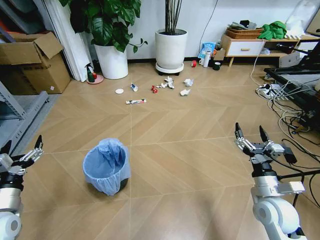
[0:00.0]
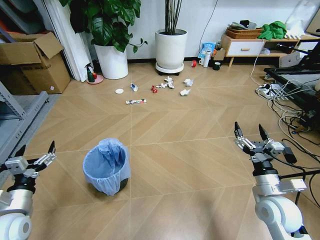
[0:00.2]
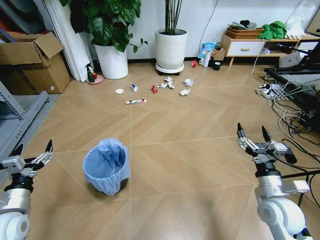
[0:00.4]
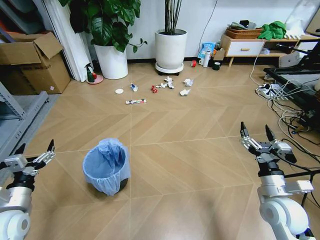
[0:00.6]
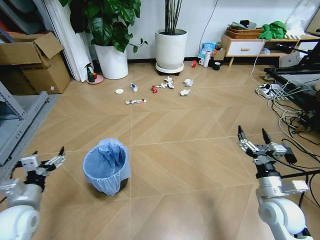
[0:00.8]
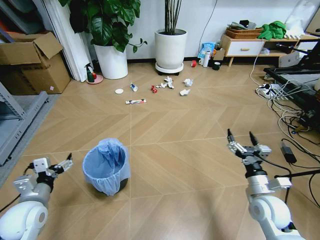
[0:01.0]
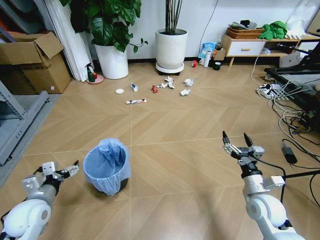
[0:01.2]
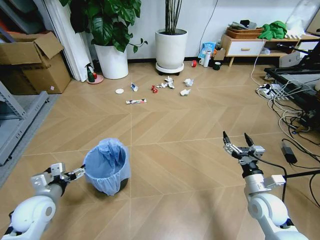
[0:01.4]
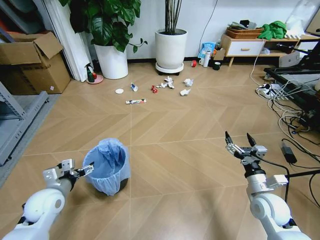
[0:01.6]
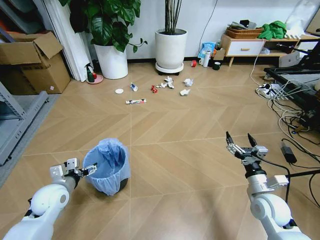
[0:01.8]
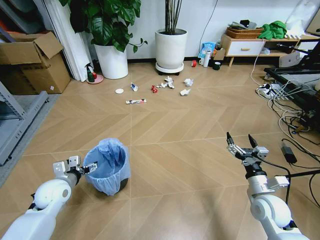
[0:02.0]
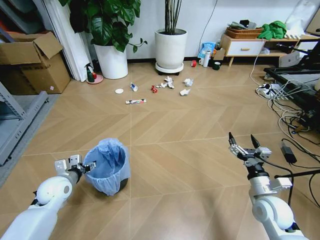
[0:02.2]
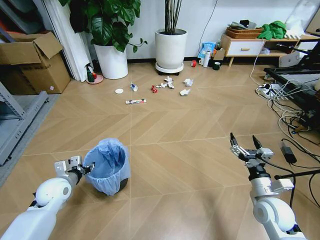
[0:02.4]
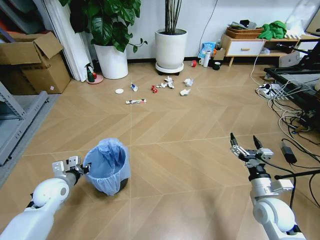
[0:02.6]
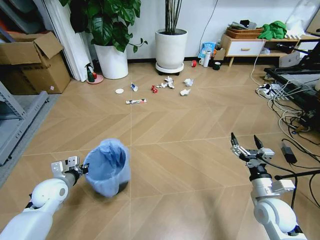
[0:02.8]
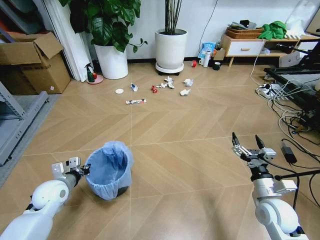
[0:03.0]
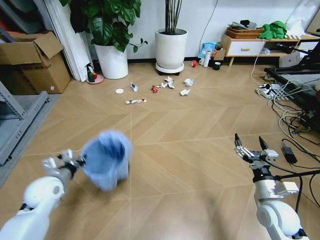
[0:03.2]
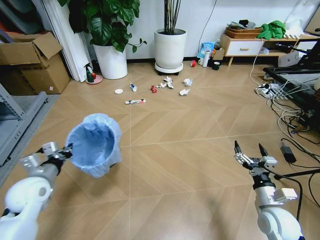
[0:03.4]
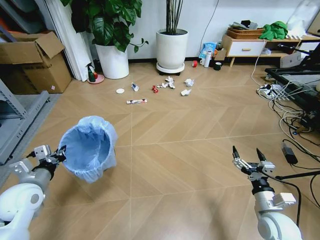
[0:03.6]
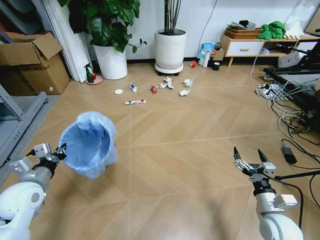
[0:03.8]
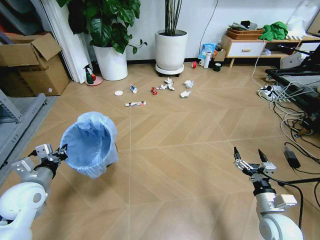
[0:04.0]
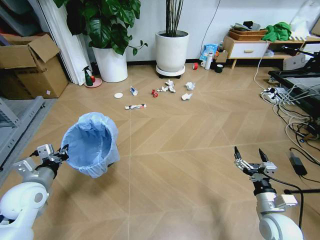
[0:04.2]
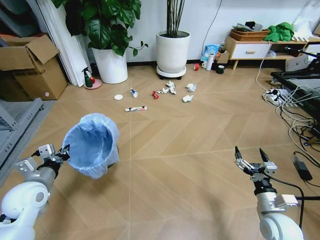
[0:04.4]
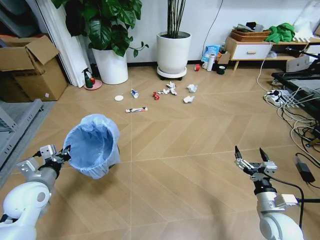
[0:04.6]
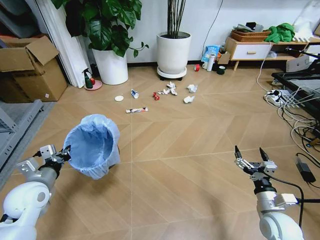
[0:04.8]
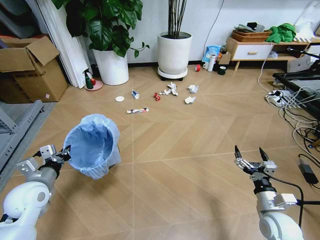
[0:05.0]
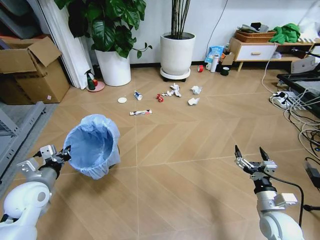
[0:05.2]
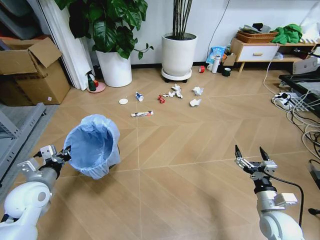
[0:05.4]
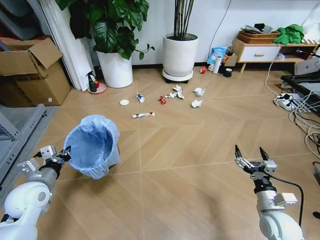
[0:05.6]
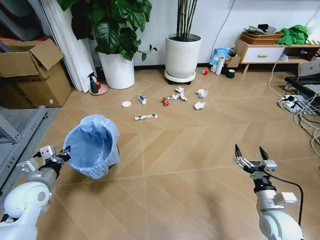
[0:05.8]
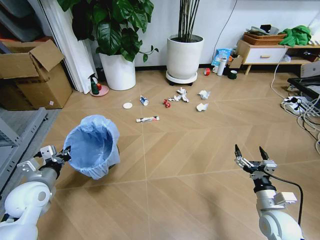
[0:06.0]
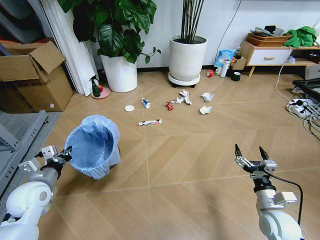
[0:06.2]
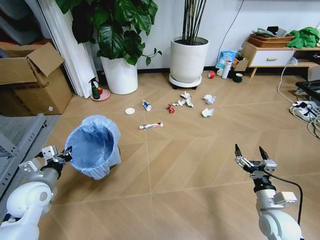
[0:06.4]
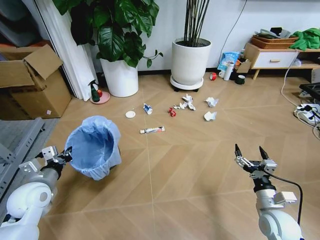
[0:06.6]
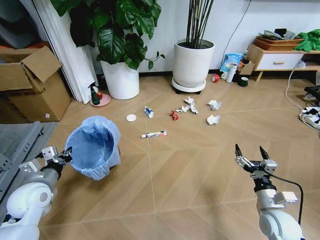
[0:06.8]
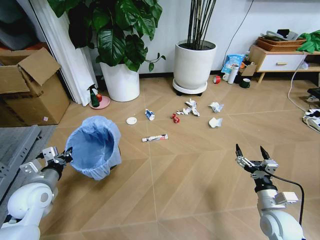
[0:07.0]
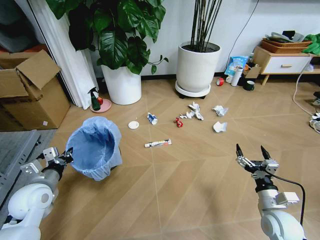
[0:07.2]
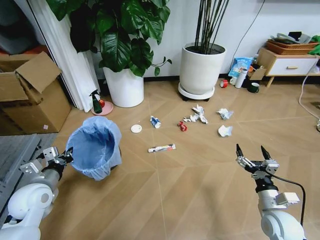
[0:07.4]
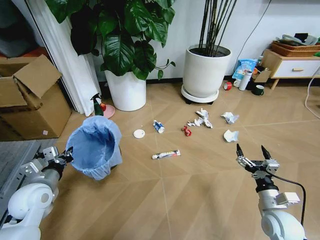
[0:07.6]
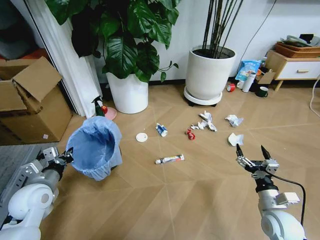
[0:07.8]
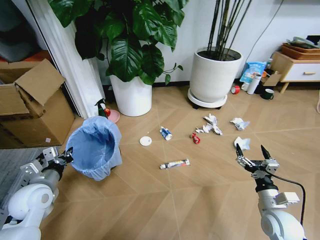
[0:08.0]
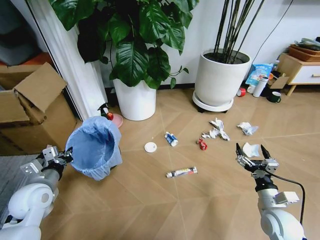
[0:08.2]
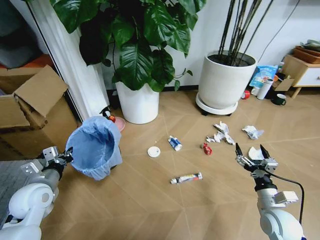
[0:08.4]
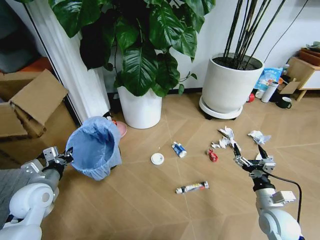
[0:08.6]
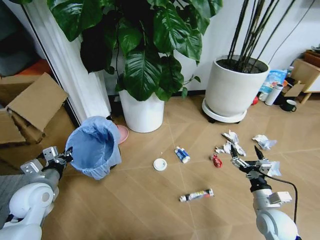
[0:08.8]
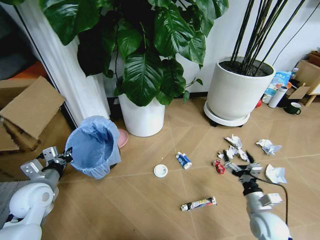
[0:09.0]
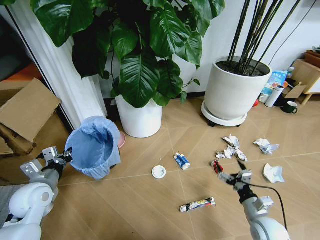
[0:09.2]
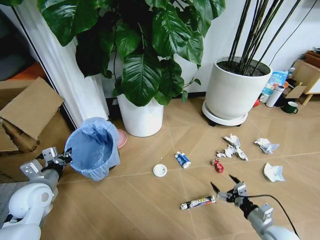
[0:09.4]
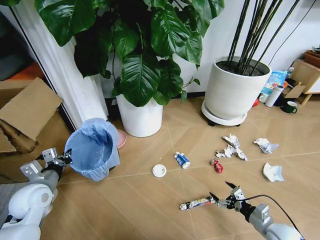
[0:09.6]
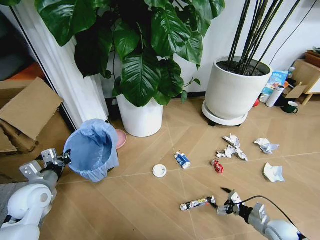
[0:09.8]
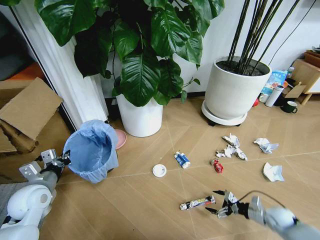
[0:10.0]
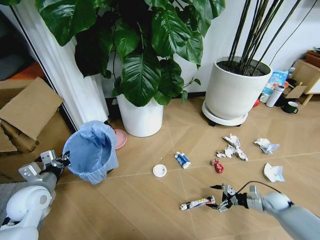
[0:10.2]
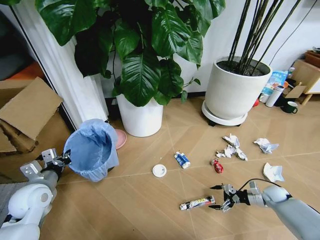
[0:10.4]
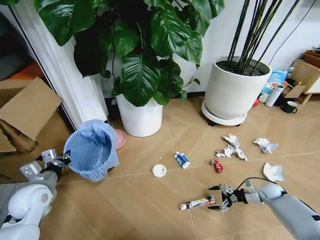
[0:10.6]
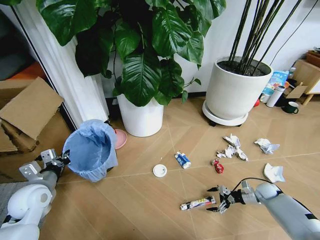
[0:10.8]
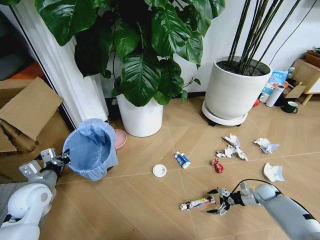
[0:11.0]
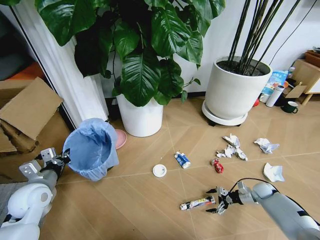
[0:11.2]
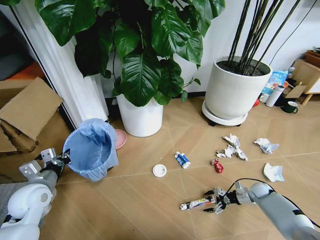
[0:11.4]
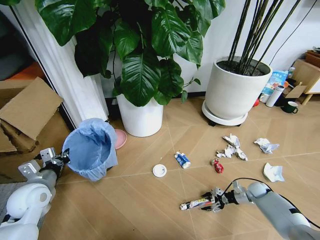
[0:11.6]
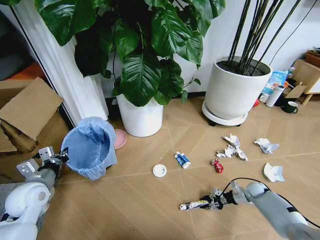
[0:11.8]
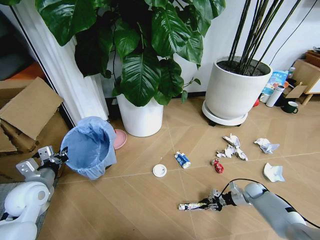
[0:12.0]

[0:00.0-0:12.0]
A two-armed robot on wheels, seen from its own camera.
Task of the whole recording: Pick up the trash bin and place the garbage on the floor into it.
0:01.6 to 0:03.0: The left gripper closes.
0:03.0 to 0:04.4: The left gripper travels upward by about 5 cm.
0:09.0 to 0:10.4: The right gripper moves to the right, forward and downward, approximately 25 cm.
0:10.4 to 0:12.0: The right gripper ends up approximately 5 cm from where it was, and closes its fingers.

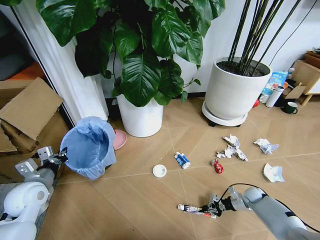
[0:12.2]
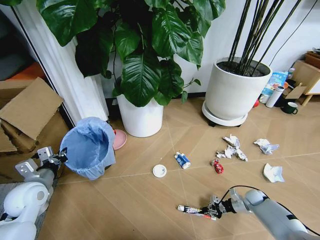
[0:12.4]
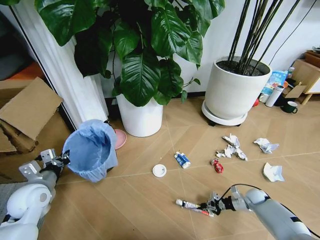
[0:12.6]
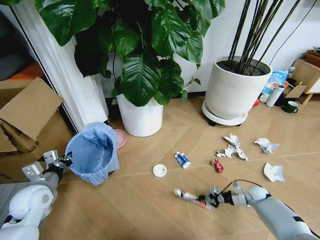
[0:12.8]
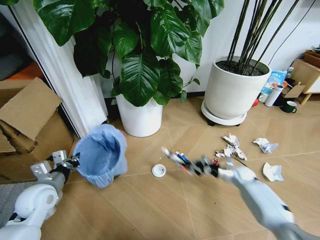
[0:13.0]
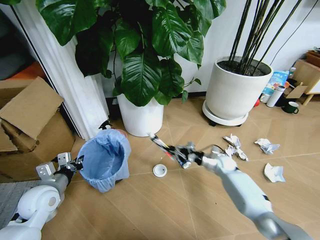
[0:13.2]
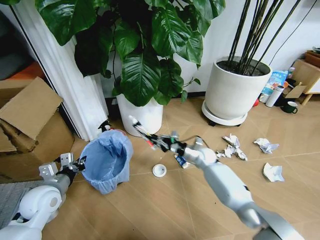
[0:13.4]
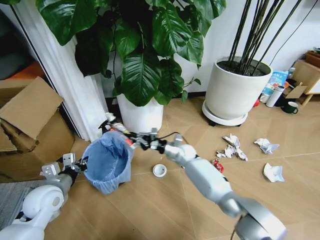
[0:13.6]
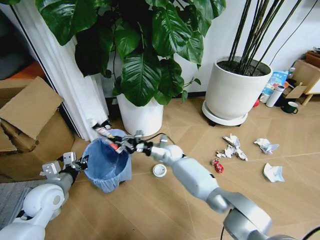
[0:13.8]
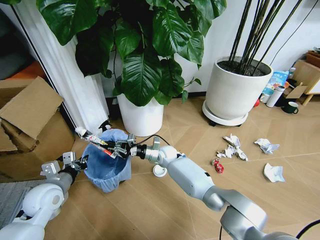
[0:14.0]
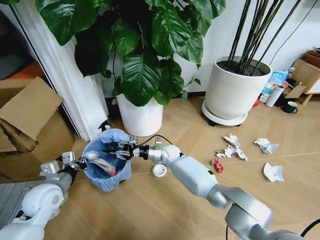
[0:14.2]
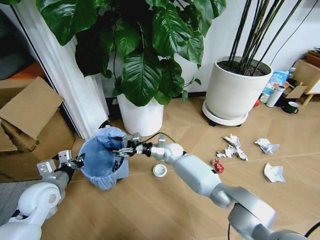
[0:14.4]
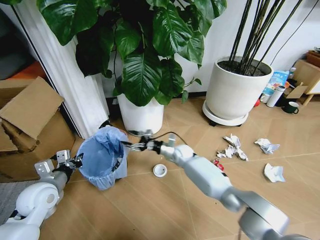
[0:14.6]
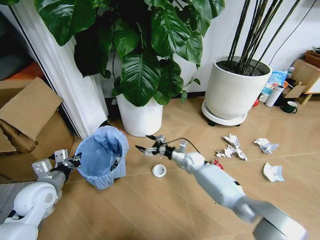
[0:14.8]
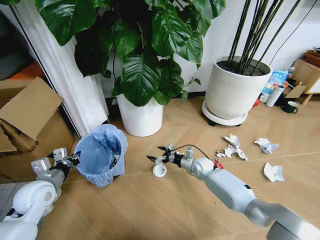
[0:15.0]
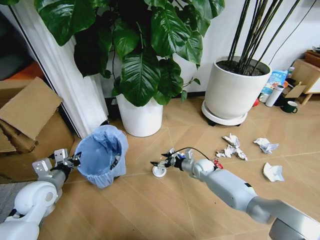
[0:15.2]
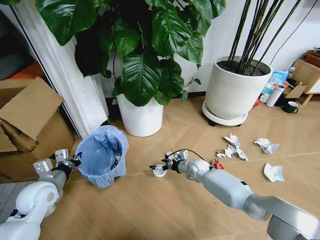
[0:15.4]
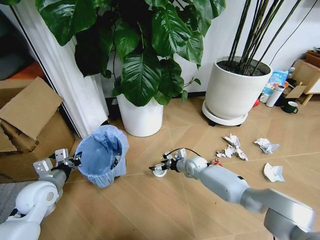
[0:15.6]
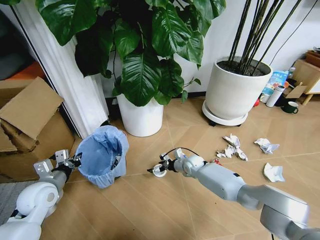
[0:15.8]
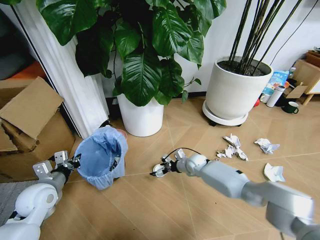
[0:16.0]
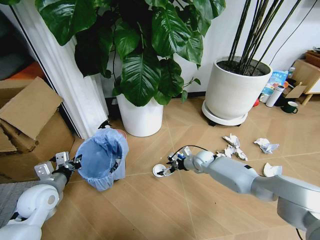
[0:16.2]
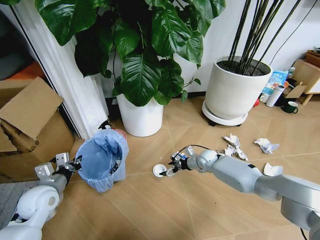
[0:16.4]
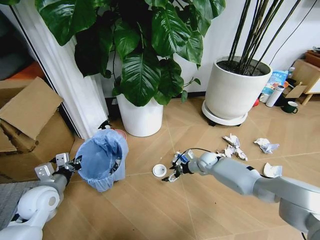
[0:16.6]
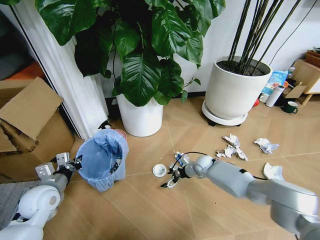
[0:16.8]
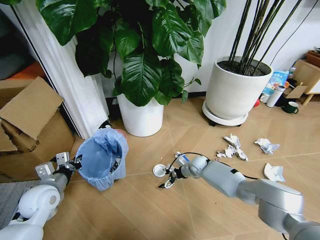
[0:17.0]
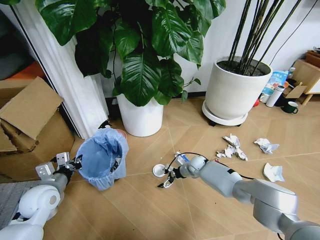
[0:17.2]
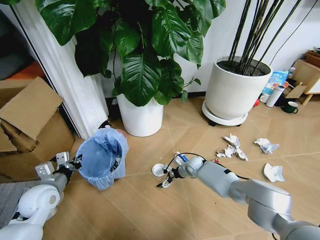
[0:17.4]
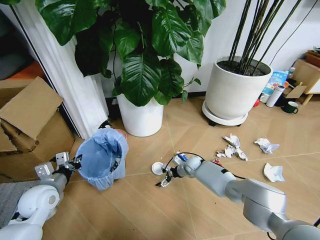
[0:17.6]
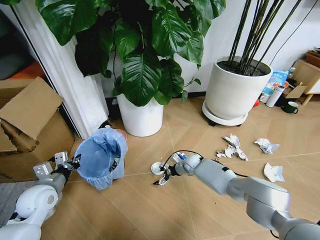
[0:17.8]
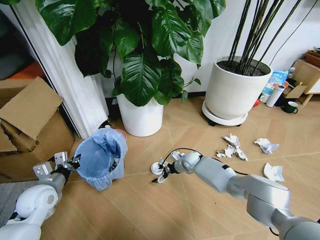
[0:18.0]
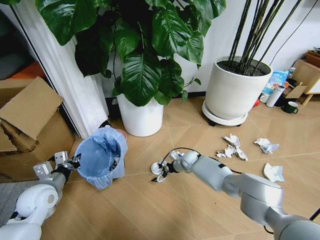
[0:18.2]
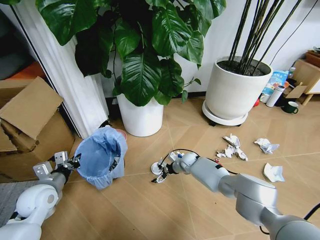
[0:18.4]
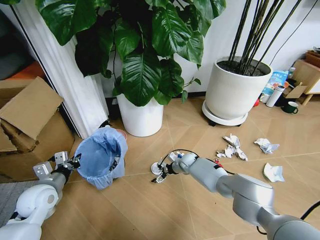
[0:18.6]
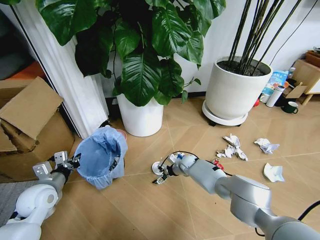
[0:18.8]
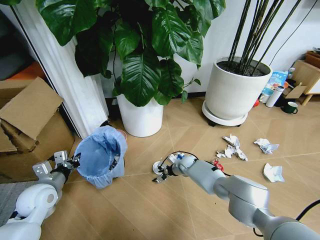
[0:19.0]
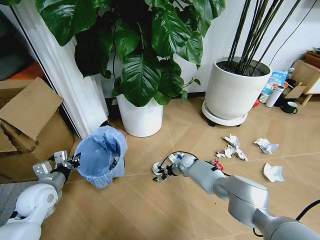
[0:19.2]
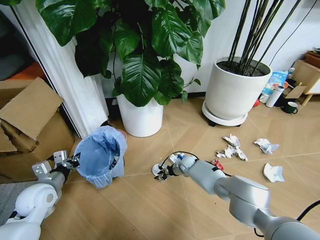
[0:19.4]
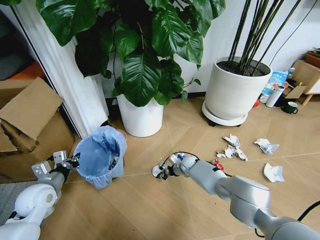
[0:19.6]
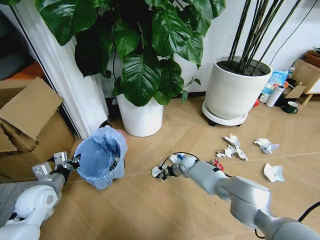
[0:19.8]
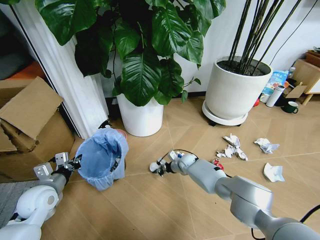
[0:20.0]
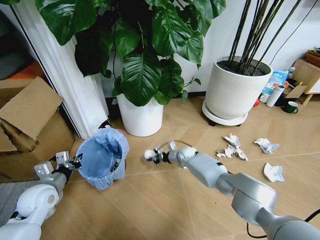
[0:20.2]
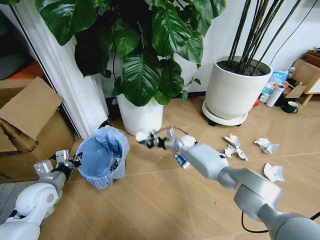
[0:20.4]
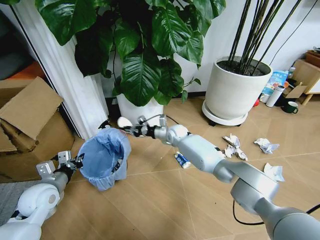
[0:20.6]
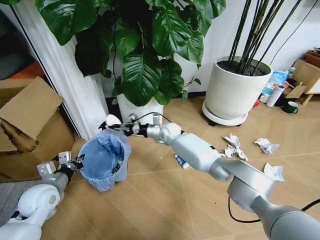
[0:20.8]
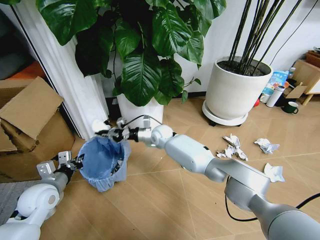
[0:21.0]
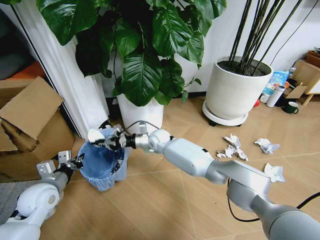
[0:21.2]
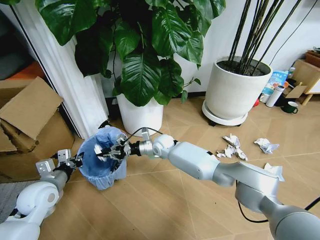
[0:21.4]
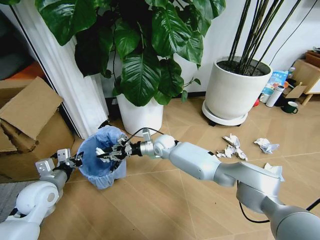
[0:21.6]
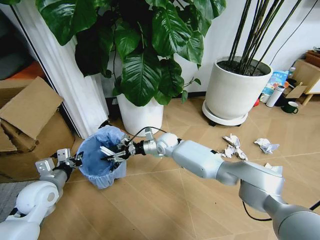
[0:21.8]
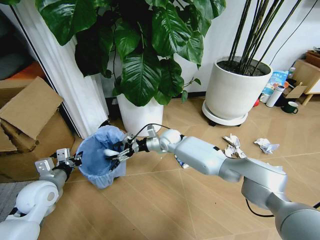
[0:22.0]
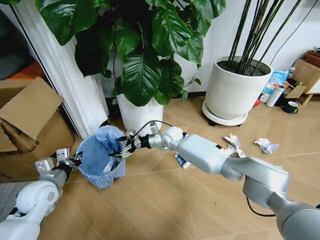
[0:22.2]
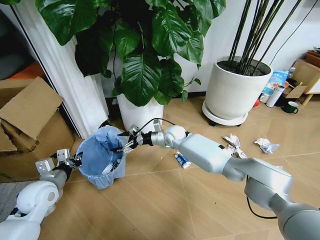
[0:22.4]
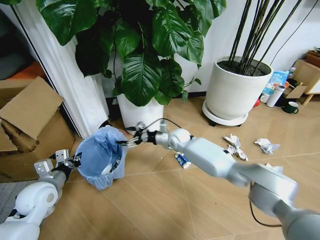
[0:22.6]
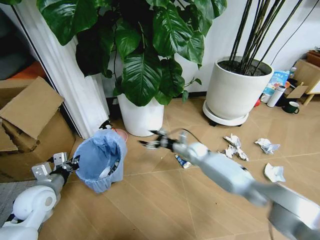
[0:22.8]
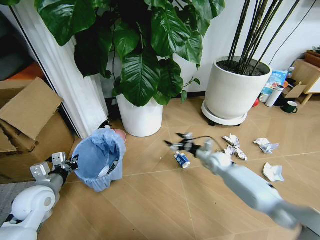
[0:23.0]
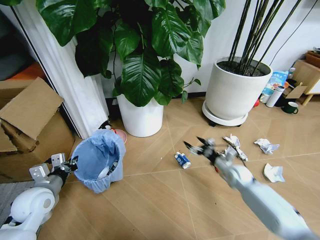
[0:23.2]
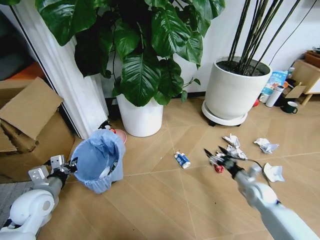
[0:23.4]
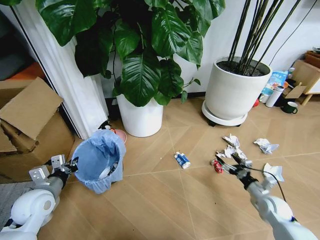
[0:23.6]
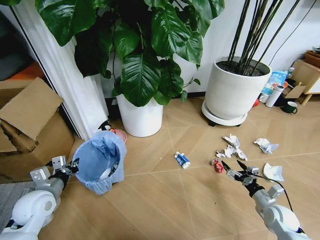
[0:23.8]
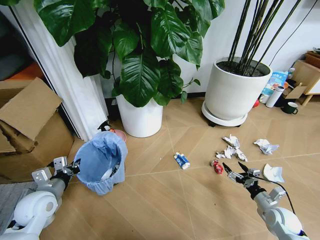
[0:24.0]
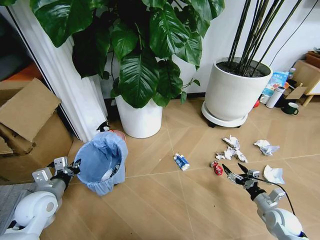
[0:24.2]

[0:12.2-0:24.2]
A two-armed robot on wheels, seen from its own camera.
Task of the whole recording: Pick up the trash bin and place the garbage on the floor into it.
0:12.2 to 0:13.8: The right gripper travels to the left by about 40 cm.
0:13.8 to 0:15.2: The right gripper is displaced to the right and downward by some 15 cm, and opens up.
0:16.6 to 0:18.2: The right gripper goes some 5 cm to the left.
0:18.2 to 0:19.8: The right gripper closes.
0:19.8 to 0:21.2: The right gripper goes about 25 cm upward and to the left.
0:21.2 to 0:22.6: The right gripper heads to the right, covering approximately 10 cm, and opens up.
0:22.6 to 0:24.2: The right gripper shifts approximately 50 cm to the right and backward.
